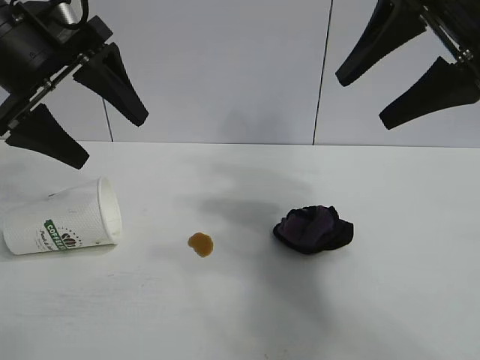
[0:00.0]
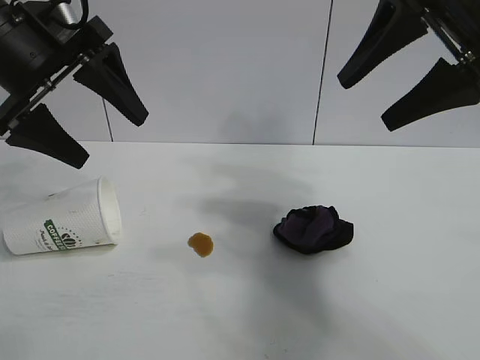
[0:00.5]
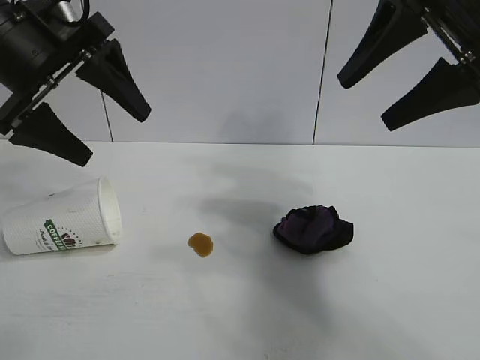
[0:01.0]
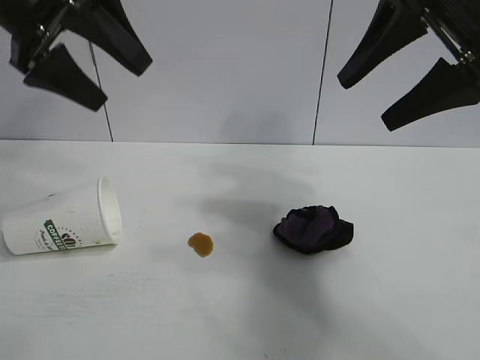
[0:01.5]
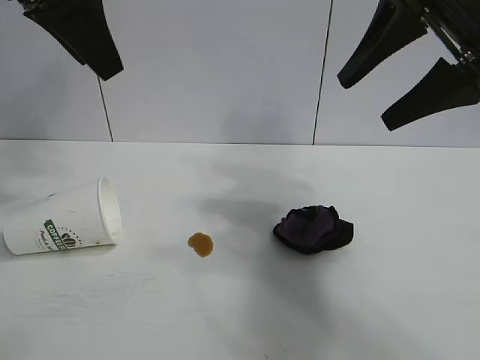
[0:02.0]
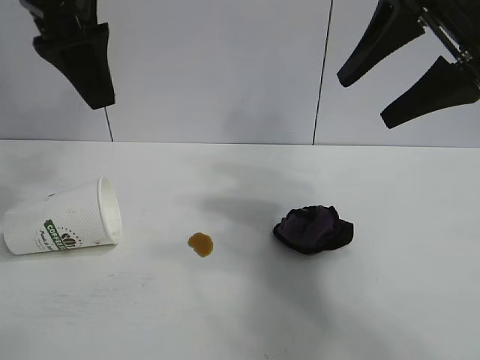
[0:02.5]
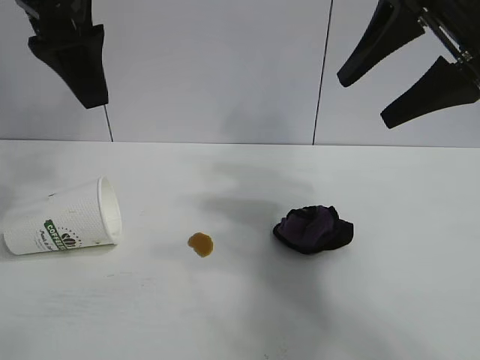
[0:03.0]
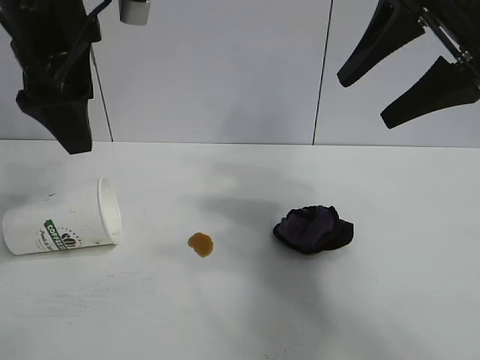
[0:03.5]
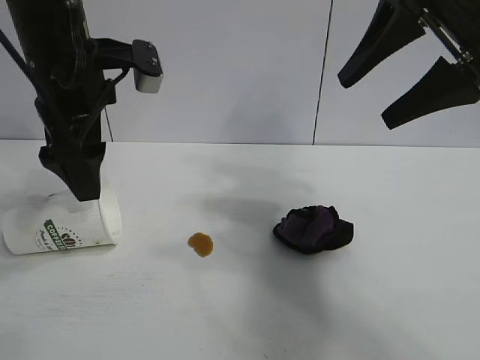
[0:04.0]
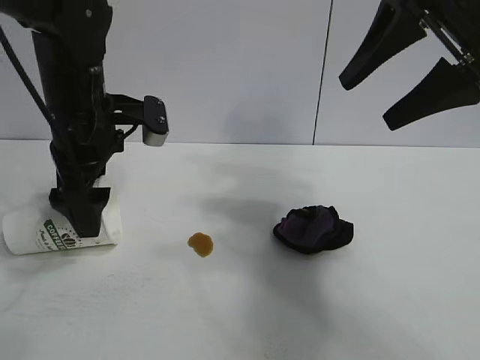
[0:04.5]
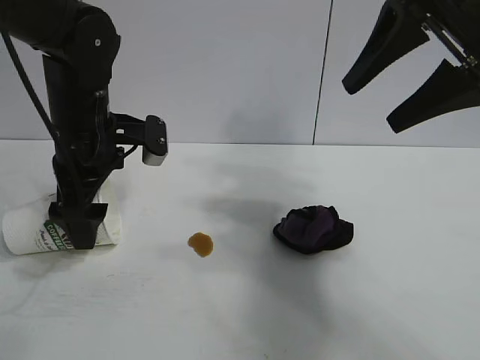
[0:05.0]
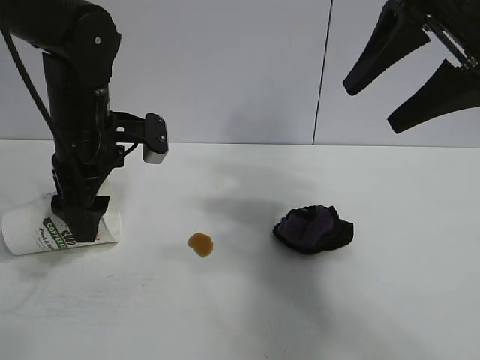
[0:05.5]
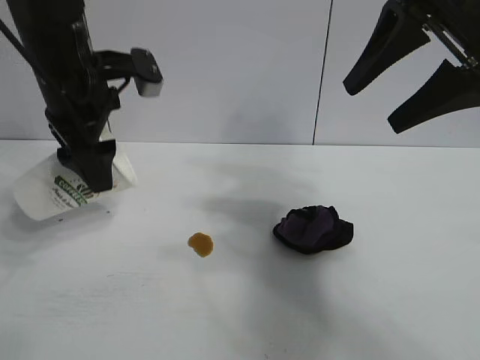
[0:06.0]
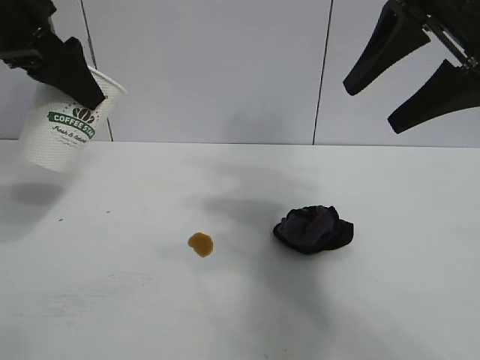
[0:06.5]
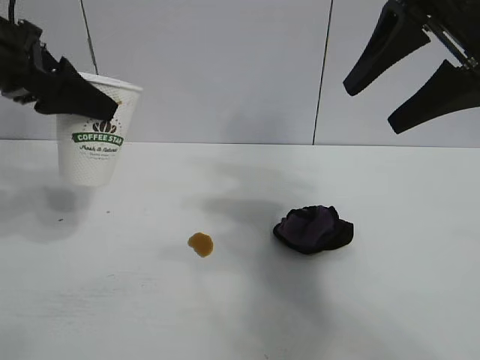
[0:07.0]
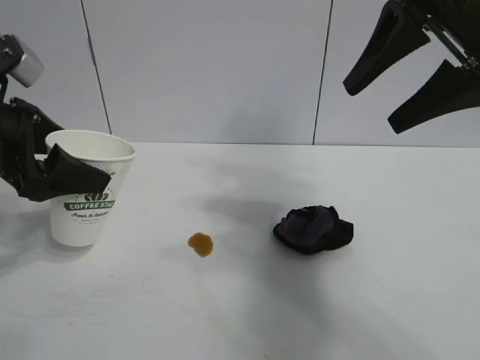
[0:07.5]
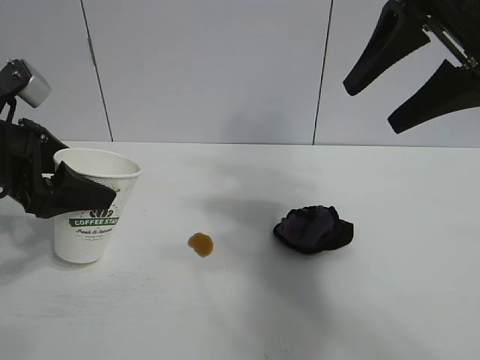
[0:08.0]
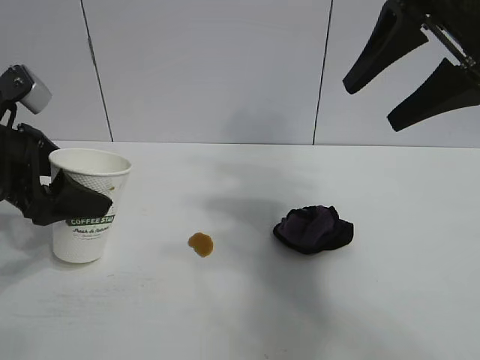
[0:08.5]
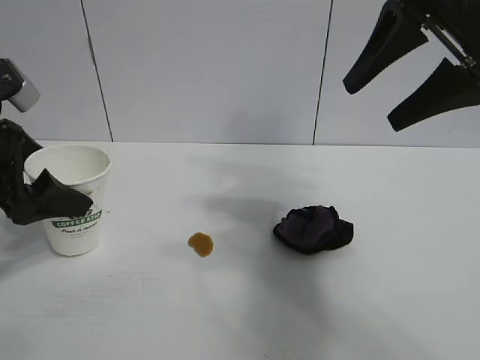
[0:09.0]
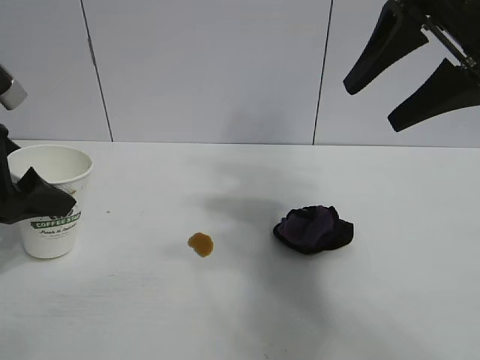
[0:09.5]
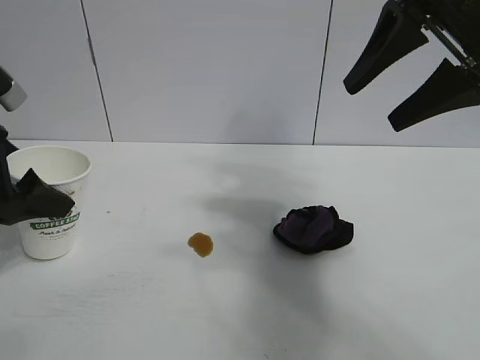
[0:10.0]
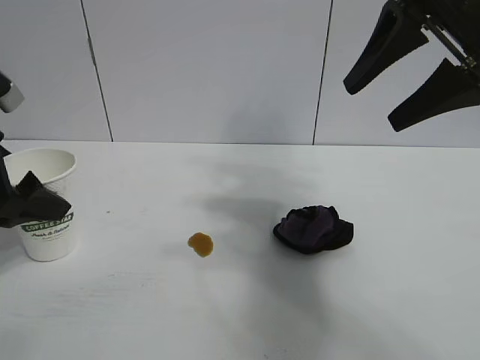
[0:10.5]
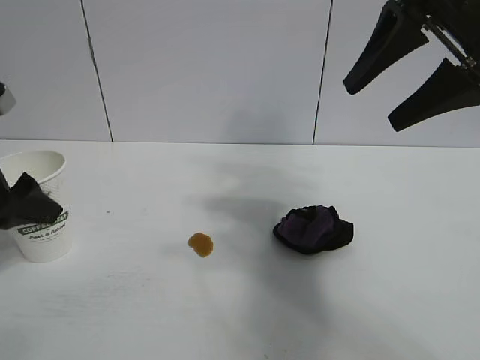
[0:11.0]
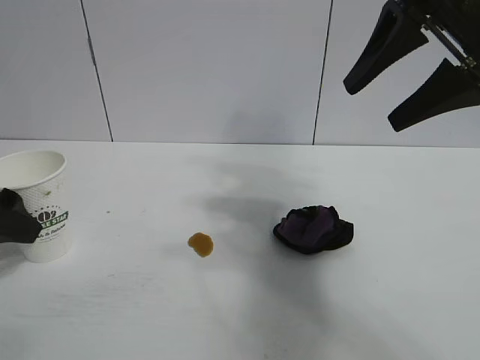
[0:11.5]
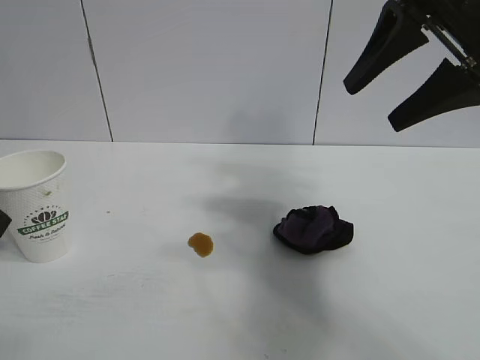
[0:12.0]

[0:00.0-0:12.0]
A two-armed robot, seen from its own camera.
Task of the whole recording: the left gripper pick up the fallen cup and place it upright, the right gripper grasp the black rag and wipe the stain on the table, the right gripper put the black rag back in its original position.
Step, 0:00.0 to 0:05.5: Grasp the paper cup with left gripper.
Step, 0:06.0 to 0:10.5: Stand the paper cup upright with left gripper.

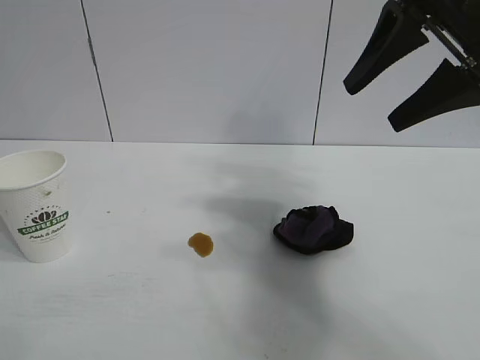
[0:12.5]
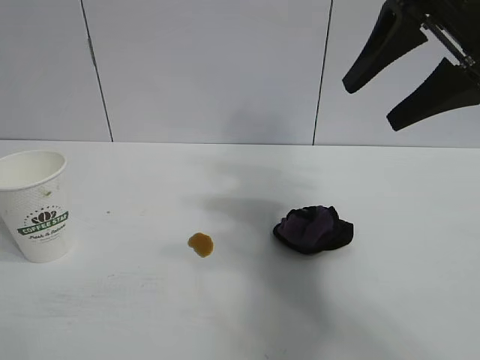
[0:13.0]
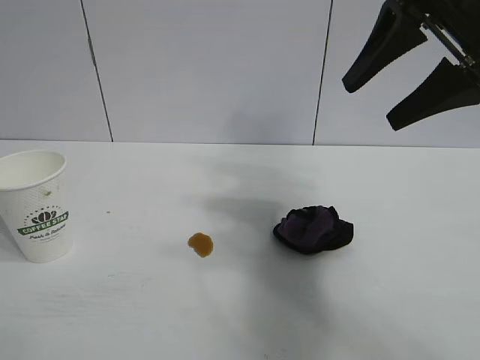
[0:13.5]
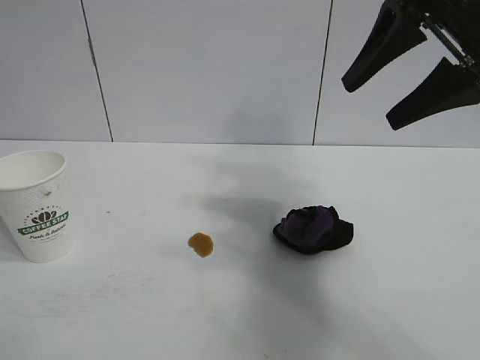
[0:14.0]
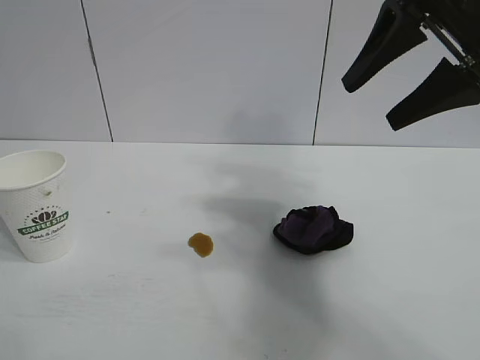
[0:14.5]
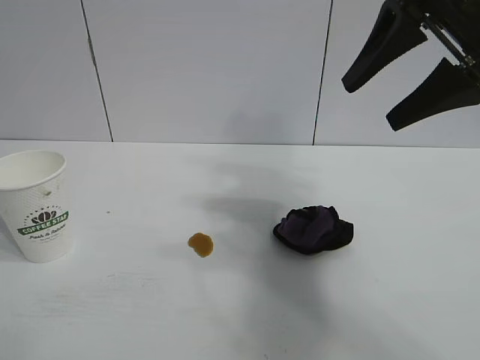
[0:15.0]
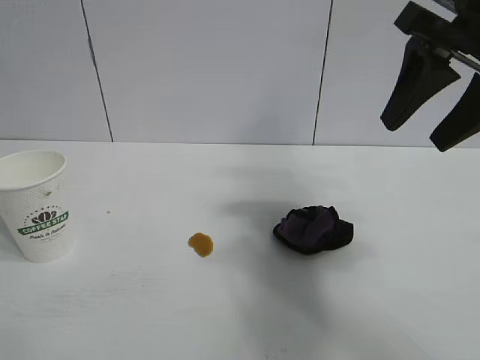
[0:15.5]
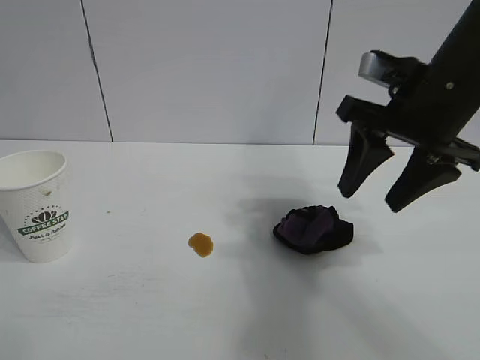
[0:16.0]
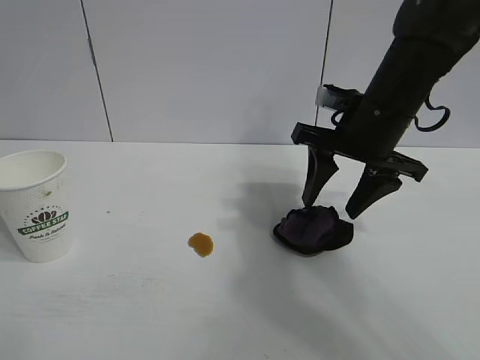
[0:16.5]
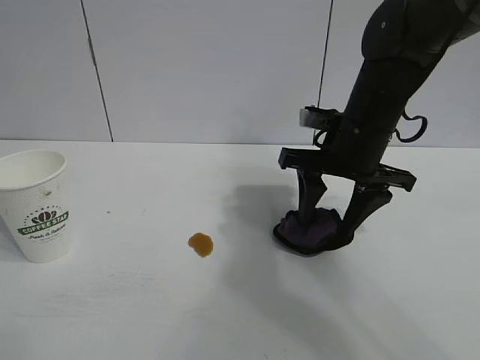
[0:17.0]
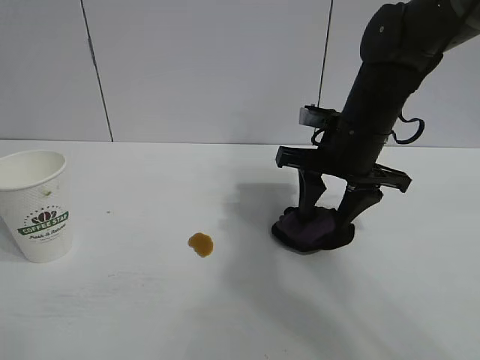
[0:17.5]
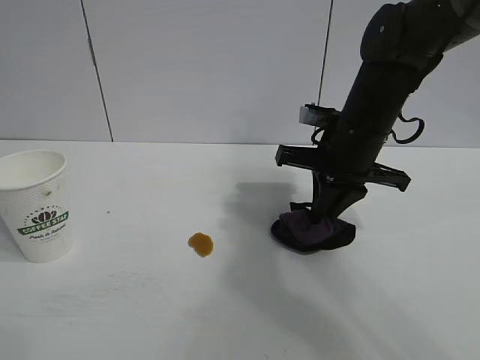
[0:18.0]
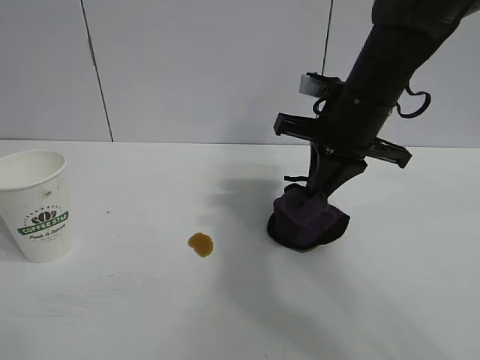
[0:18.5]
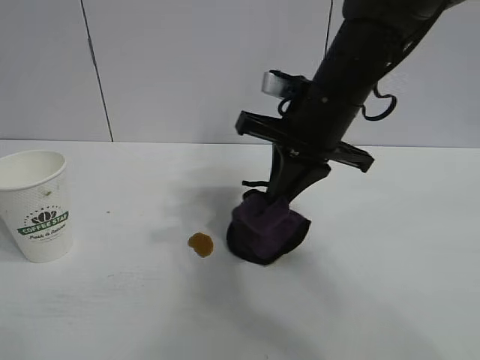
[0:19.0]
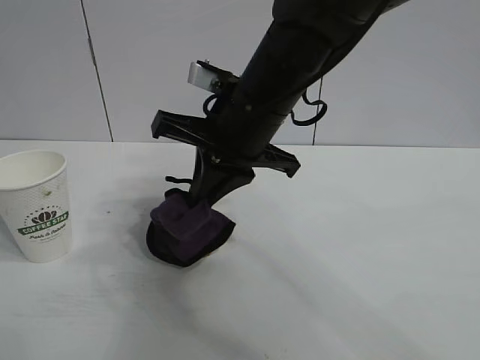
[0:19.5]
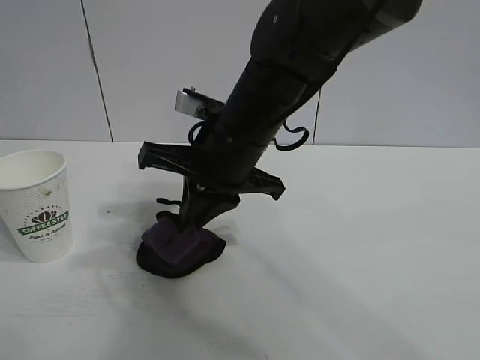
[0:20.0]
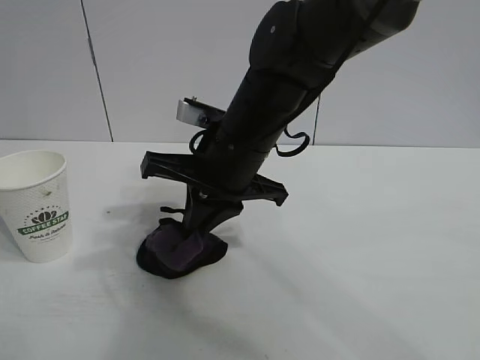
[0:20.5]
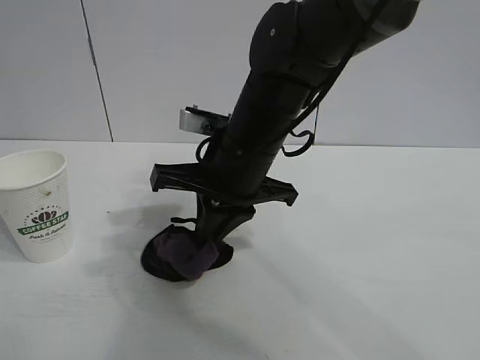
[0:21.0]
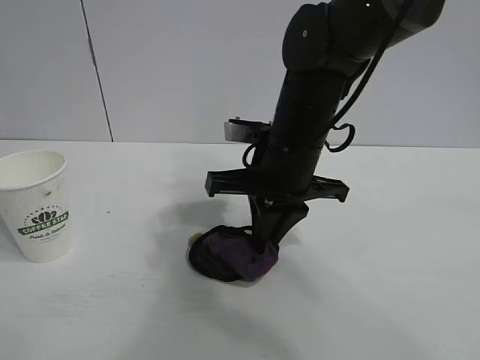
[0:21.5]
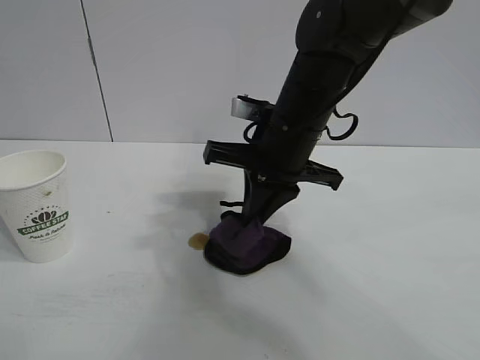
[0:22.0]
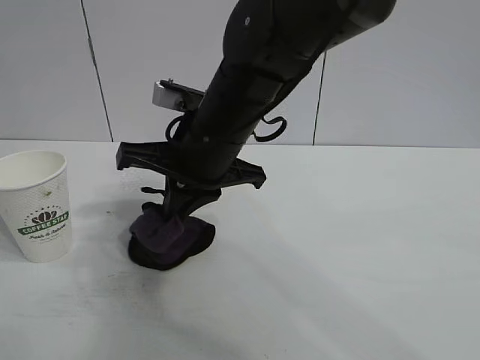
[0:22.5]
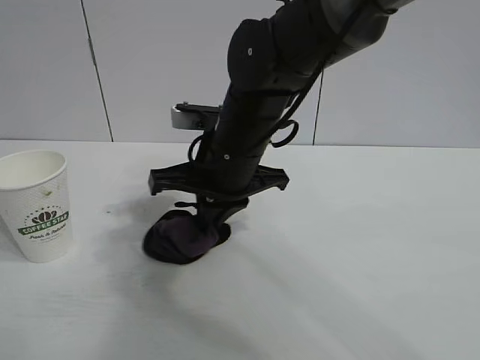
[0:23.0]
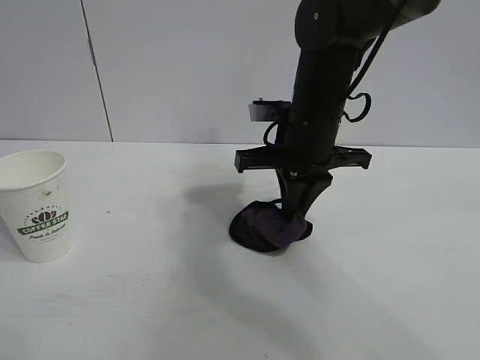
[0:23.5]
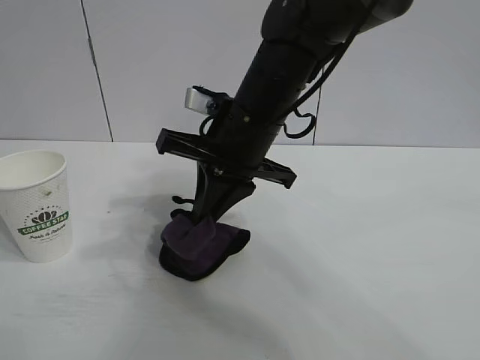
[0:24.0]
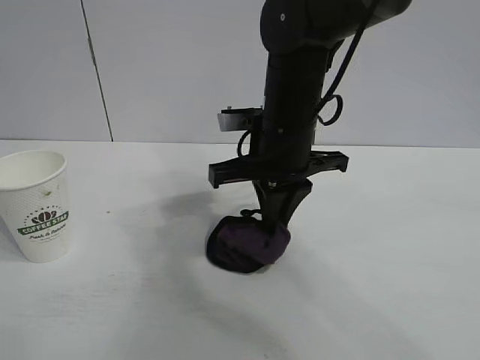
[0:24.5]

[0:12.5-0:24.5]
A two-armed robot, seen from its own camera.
Task of the whole recording: the left gripper pick up the fallen cup and place it upright, the right gripper grasp the black rag and wipe the stain on the table, the right gripper put the black rag back in its original position.
Step, 0:12.5 to 0:18.0: Grasp the rag with right gripper.
Step, 0:18.5 to 0:24.5: Wipe the stains off the table with the rag with right gripper.
